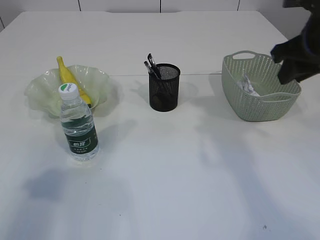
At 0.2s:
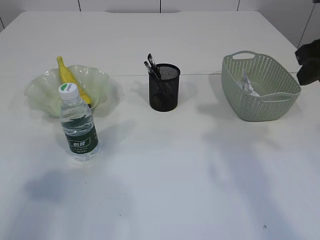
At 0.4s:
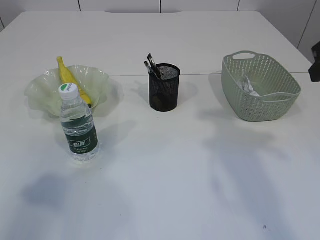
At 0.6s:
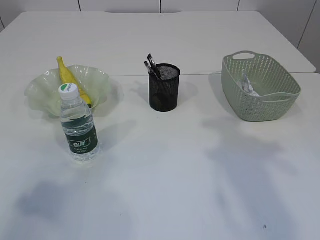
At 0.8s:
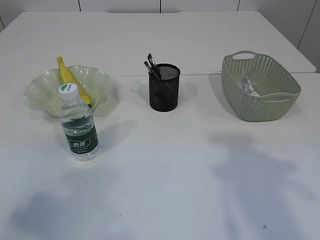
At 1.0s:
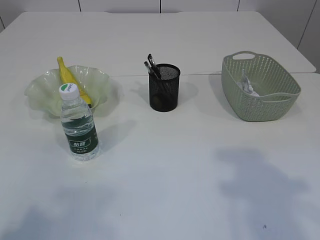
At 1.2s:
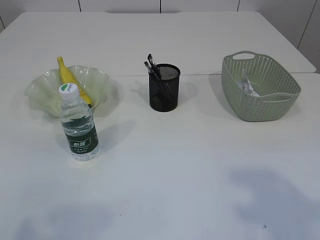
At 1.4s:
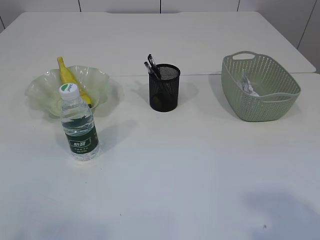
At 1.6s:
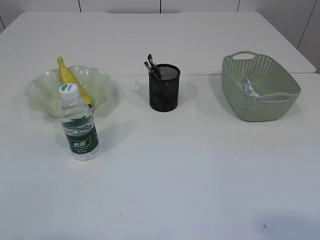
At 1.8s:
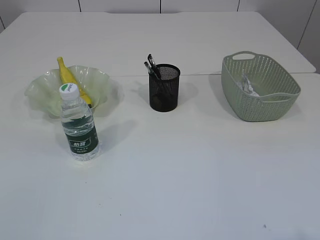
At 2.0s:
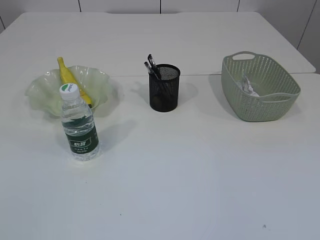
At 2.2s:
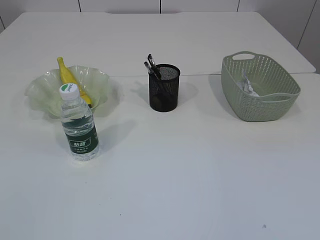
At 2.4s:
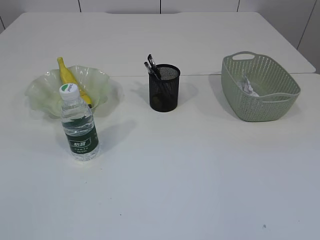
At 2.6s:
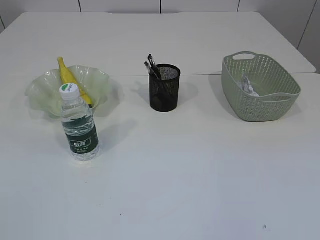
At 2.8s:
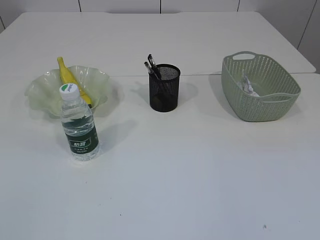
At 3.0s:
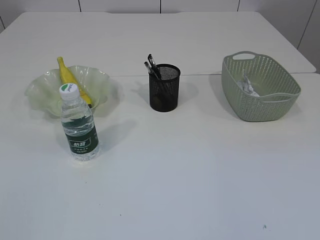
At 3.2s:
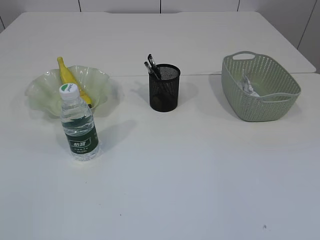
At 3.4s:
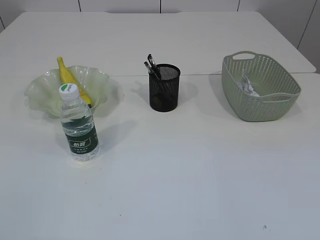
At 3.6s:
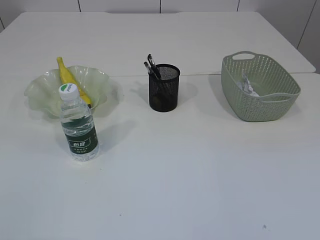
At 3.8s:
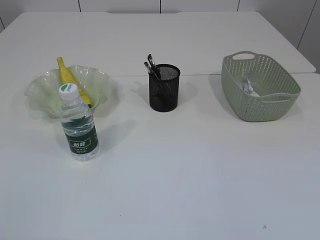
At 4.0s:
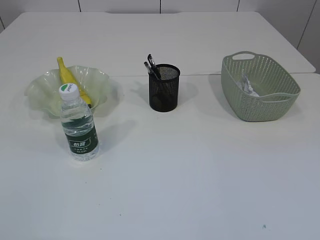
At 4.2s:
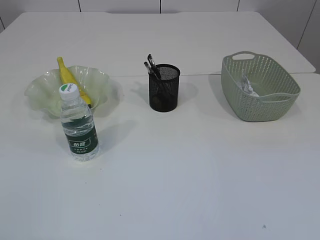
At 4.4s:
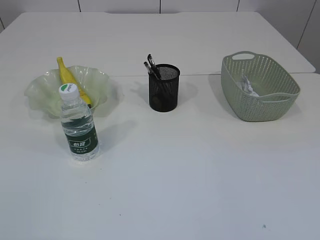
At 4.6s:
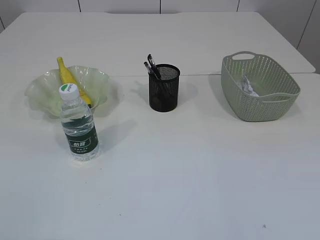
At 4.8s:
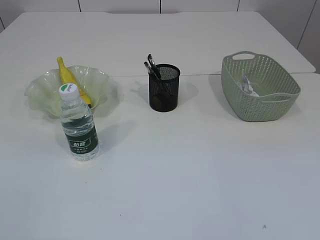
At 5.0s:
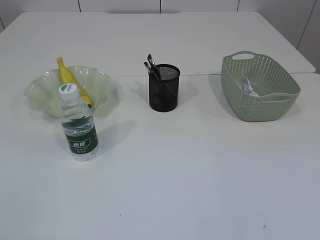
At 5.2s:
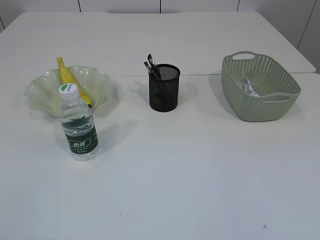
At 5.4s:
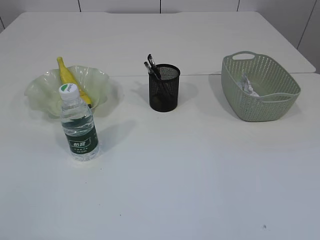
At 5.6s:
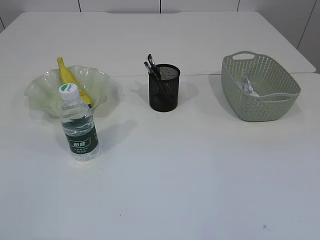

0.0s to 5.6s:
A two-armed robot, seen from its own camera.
0.0s to 1.4s: The right gripper moves backward, approximately 25 cm. Meanwhile the left gripper travels backward by about 15 cm.

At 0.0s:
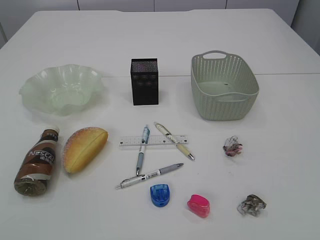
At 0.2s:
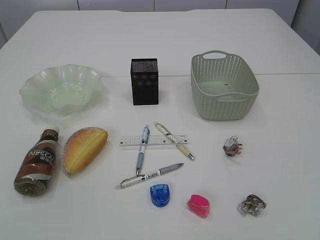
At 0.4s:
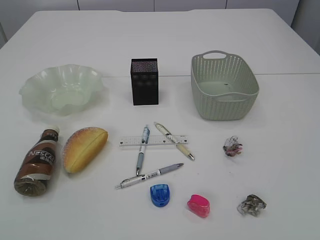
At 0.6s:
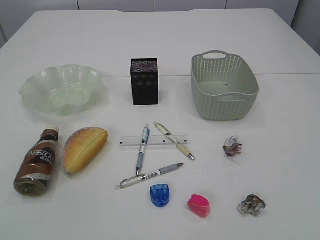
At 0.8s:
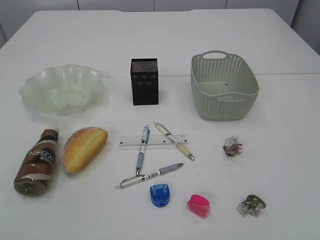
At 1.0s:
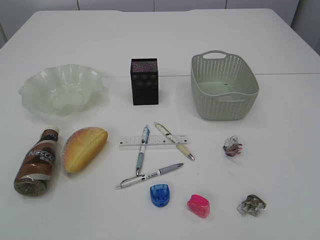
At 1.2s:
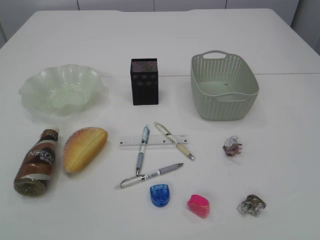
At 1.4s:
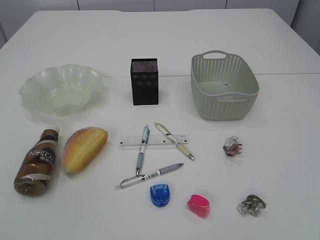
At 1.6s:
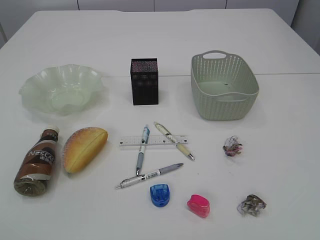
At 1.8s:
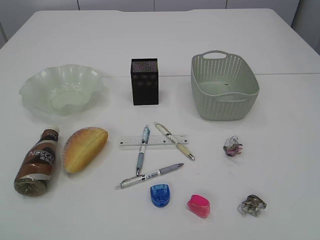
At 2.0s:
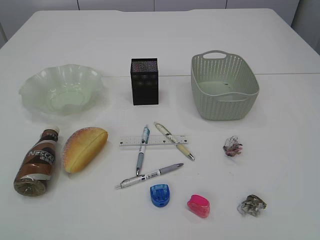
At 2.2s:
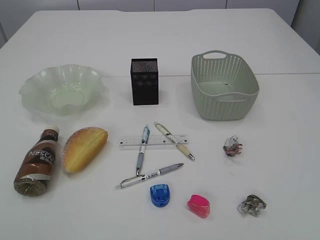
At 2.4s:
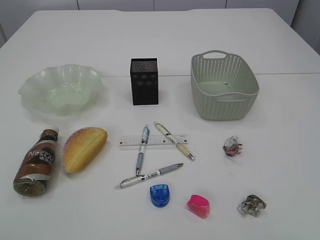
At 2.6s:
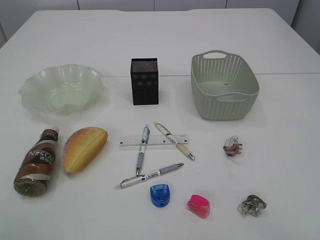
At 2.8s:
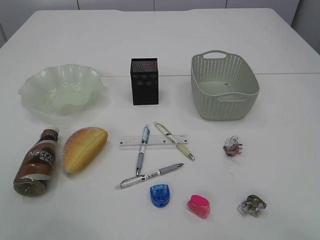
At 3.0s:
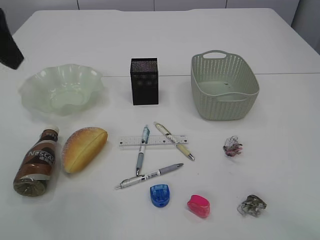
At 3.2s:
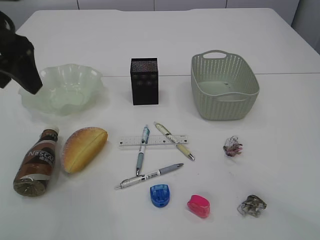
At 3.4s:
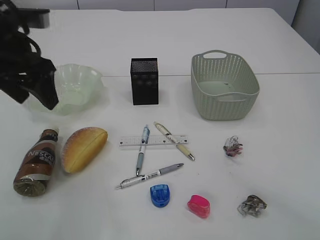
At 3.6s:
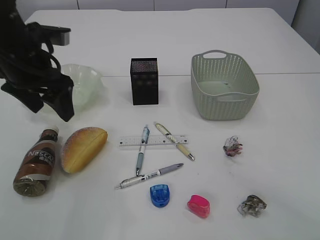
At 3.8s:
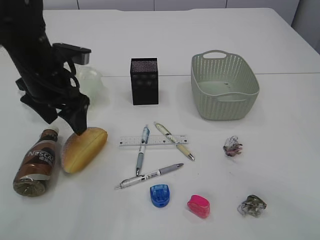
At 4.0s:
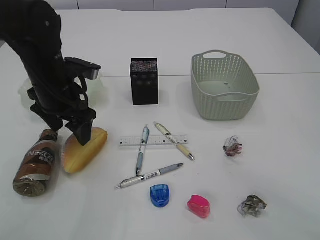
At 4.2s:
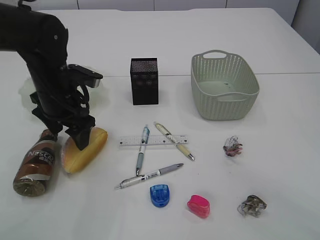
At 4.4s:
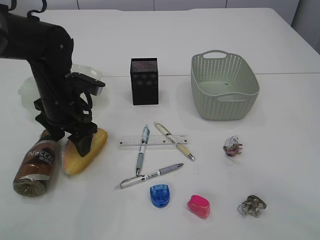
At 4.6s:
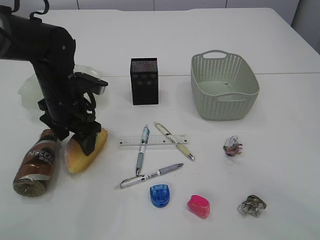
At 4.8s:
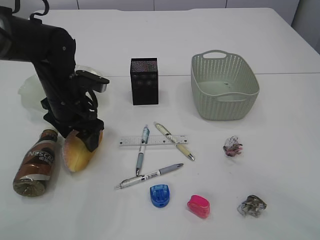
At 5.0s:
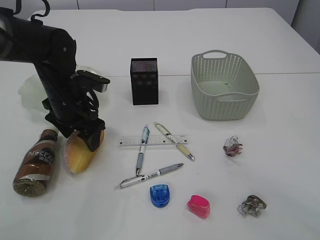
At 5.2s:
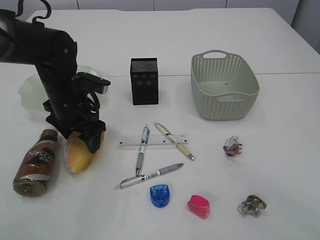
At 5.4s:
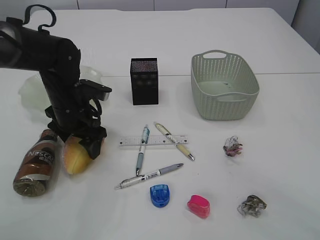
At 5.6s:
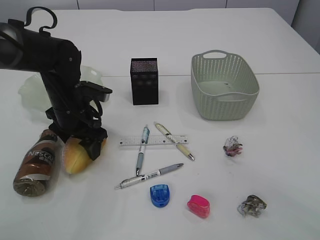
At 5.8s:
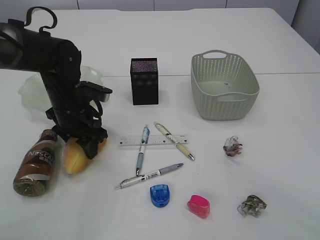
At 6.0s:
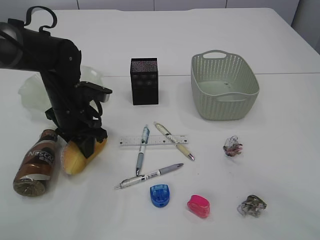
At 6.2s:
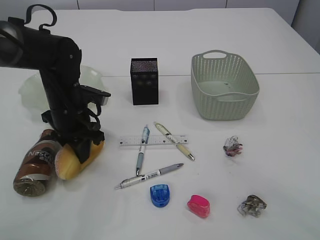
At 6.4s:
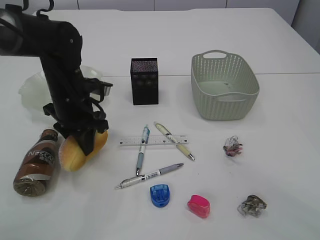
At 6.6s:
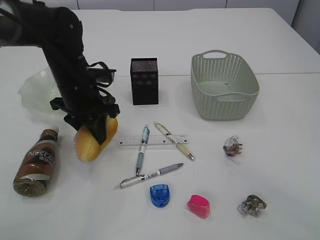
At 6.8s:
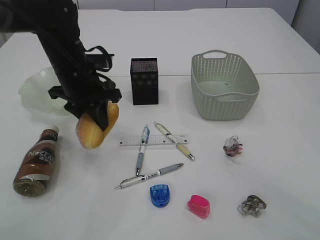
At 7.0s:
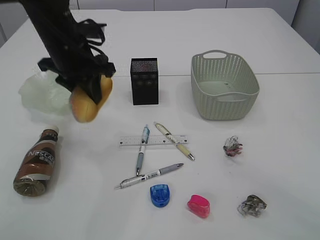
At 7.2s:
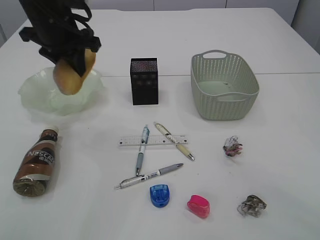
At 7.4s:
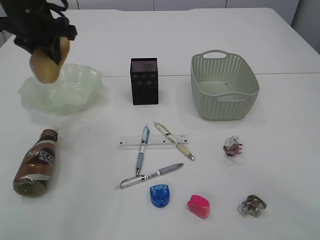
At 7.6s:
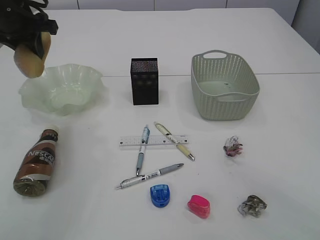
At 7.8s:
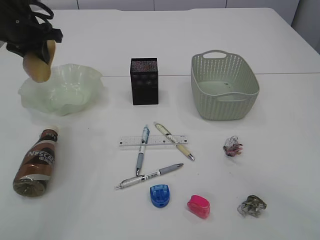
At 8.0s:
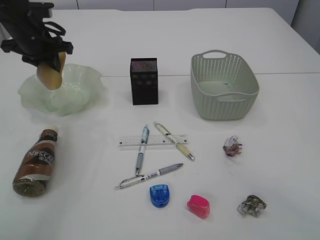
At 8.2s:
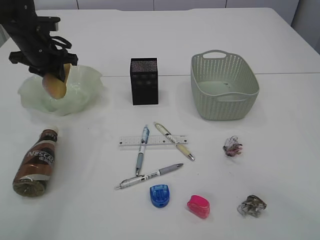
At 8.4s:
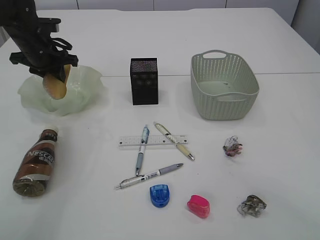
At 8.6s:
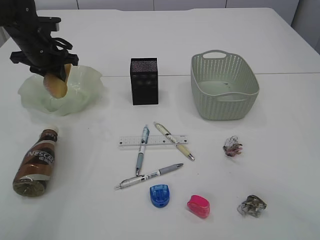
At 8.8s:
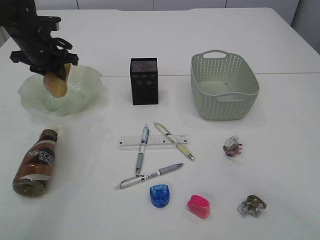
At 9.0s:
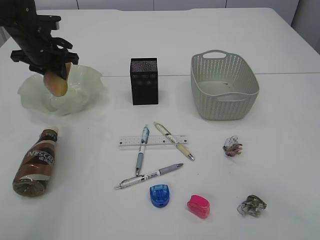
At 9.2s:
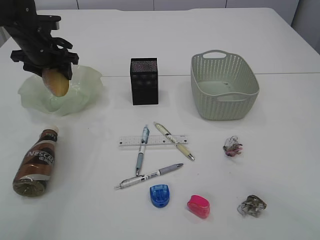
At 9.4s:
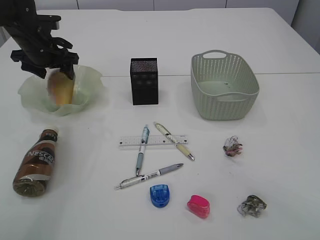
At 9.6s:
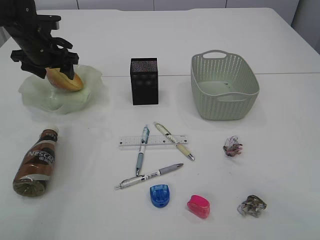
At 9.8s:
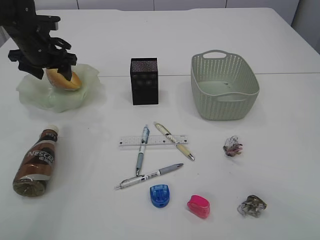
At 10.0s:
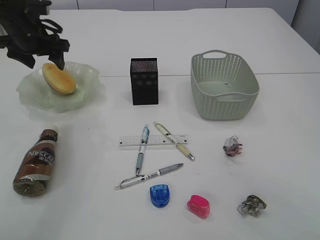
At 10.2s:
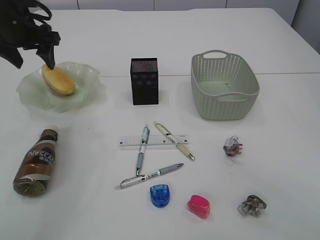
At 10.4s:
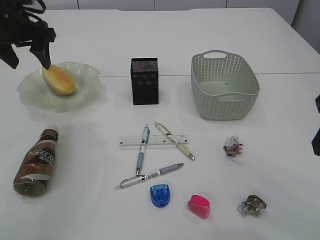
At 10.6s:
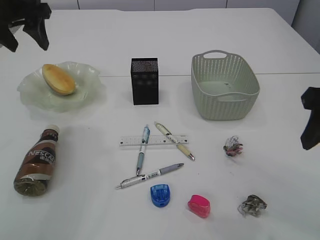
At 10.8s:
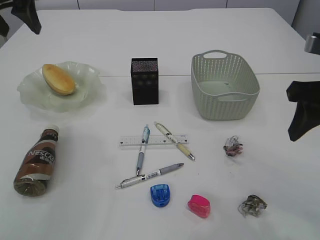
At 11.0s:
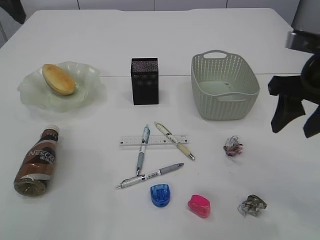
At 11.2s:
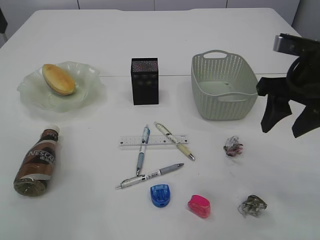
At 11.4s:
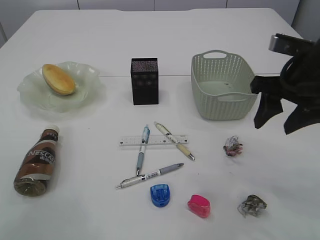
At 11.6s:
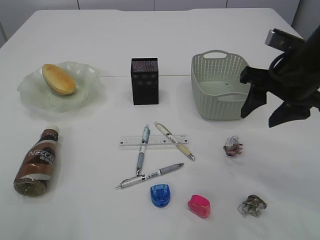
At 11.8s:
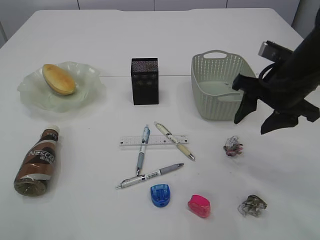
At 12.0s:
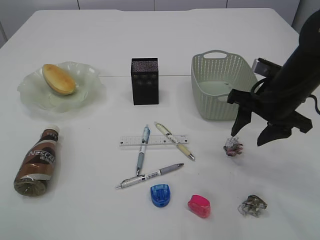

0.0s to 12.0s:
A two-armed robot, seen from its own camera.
Step, 7.0s to 10.4s: place the bread in the plate.
1.6s to 3.0s: The left gripper goes approximately 30 cm forward, and opens.
3.0s to 4.4s: The left gripper is displaced downward and forward by about 25 cm.
4.4s to 6.0s: The left gripper closes up.
6.0s to 7.6s: The left gripper is displaced upward, to the left and forward by roughly 20 cm.
7.6s to 9.0s: The left gripper shifts about 10 cm downward and forward.
9.0s to 10.4s: The left gripper is displaced upward and backward by roughly 10 cm, and opens its fingers.
10.4s to 12.0s: The left gripper moves backward and upward, about 30 cm, while the right gripper is displaced forward and downward by some 15 cm.

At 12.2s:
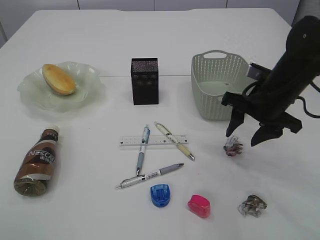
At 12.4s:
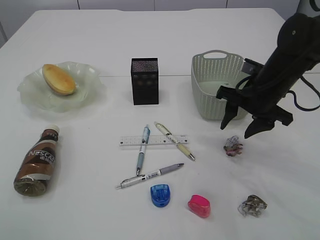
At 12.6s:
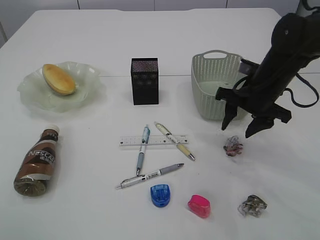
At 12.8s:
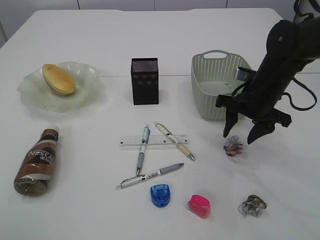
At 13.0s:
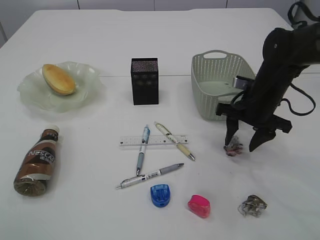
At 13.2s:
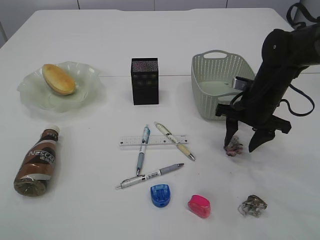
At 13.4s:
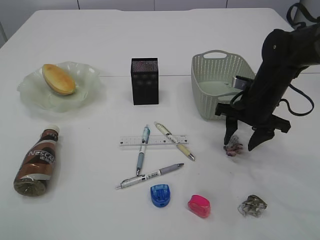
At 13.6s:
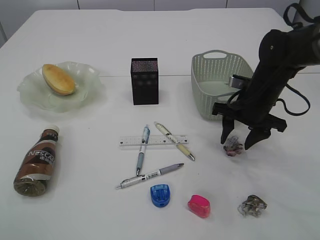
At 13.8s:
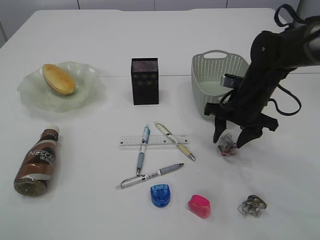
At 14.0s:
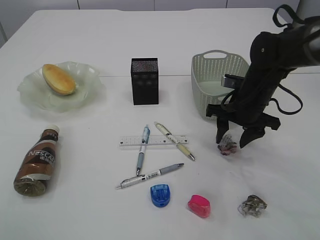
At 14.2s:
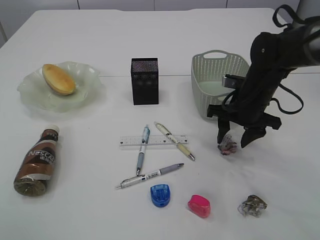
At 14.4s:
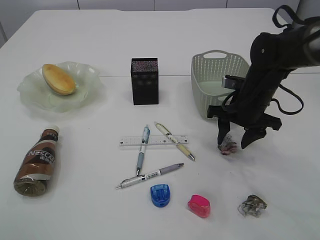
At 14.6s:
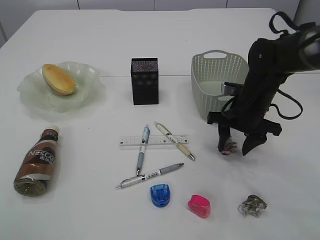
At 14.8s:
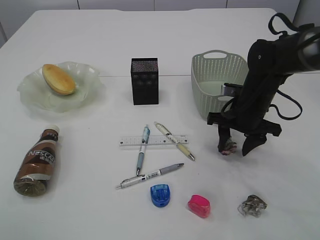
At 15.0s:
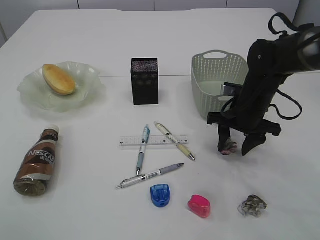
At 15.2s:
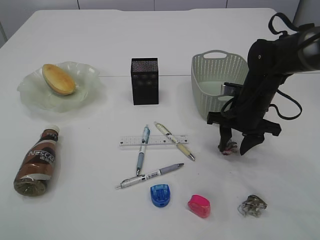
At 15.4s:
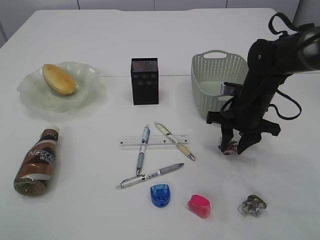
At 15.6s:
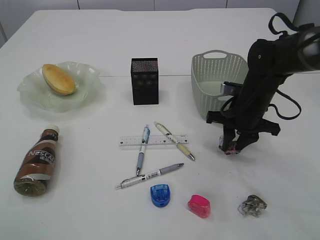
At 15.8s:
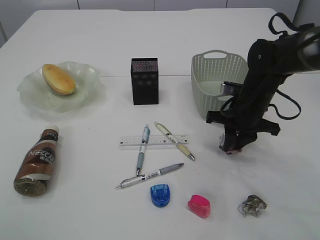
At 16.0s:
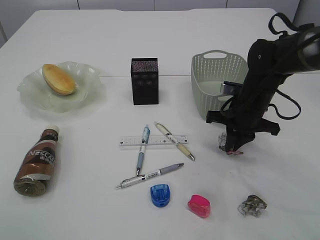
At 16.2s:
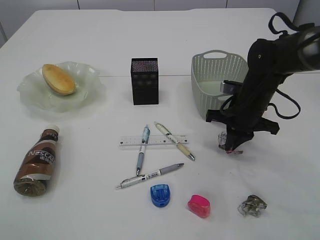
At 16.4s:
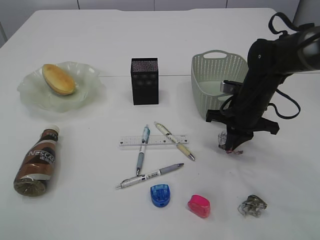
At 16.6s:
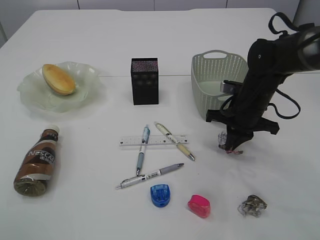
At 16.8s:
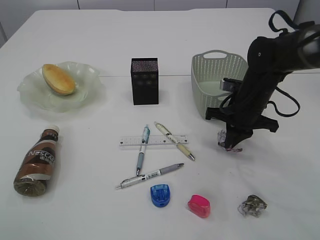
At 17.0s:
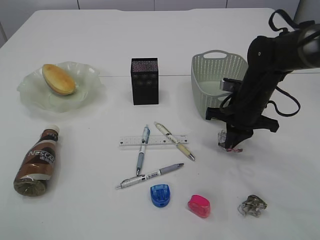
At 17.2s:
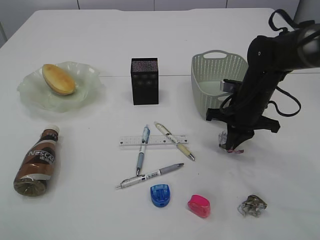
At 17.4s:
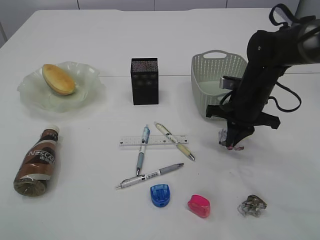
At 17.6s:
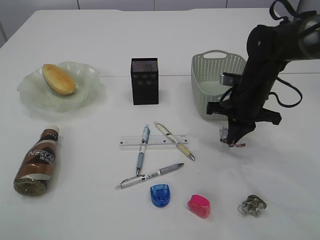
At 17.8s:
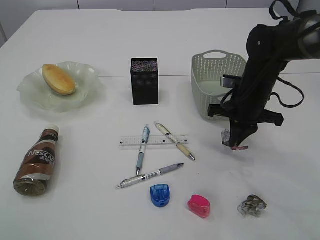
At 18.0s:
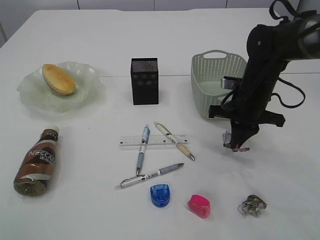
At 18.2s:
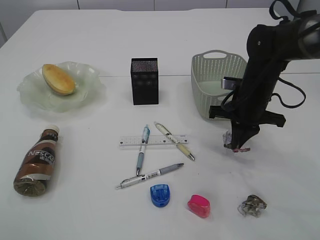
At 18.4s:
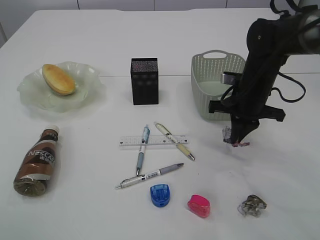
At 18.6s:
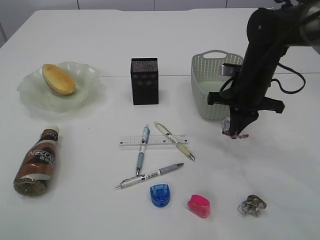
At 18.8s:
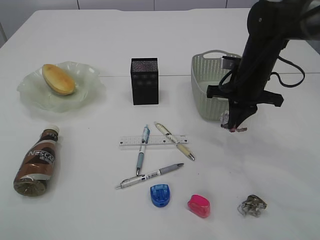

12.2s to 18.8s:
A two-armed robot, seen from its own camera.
12.2s to 13.8s: The right gripper changes place by some 5 cm.
13.8s to 15.4s: The grippers stay close to where they were, moving slightly.
15.4s to 17.2s: The right gripper closes up.
17.2s to 18.8s: The right gripper goes roughly 5 cm upward.
